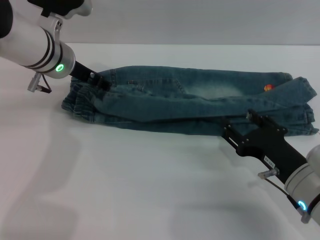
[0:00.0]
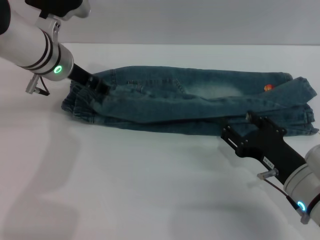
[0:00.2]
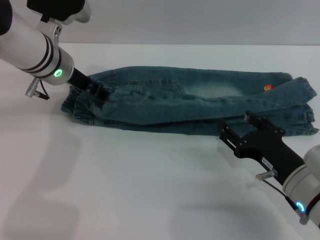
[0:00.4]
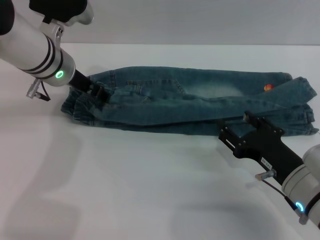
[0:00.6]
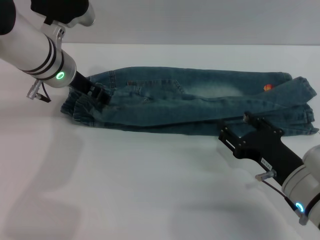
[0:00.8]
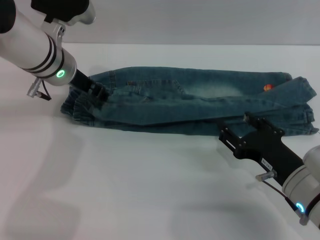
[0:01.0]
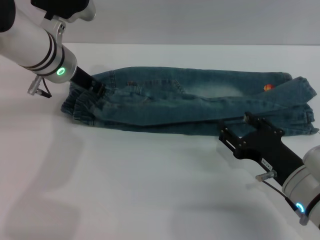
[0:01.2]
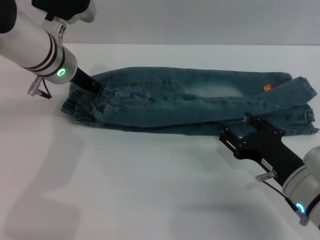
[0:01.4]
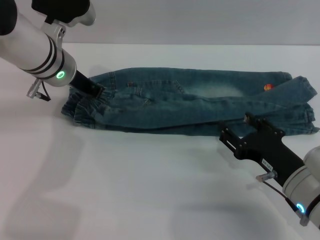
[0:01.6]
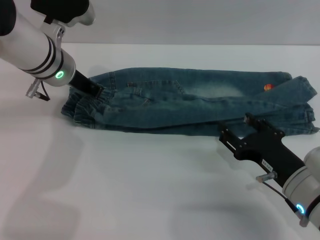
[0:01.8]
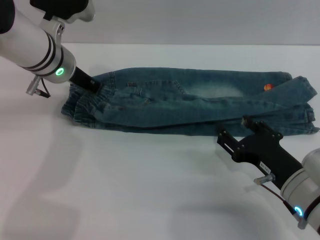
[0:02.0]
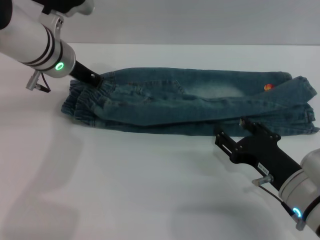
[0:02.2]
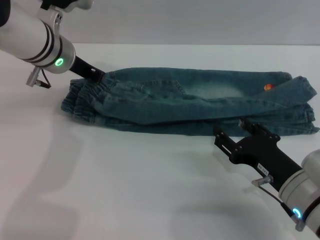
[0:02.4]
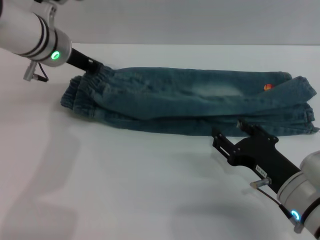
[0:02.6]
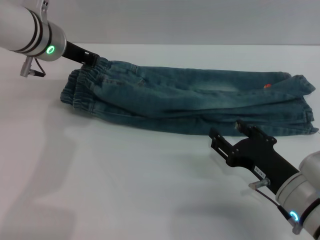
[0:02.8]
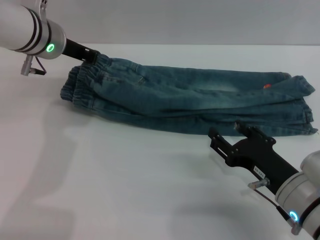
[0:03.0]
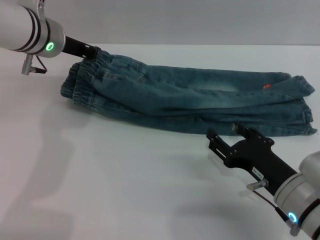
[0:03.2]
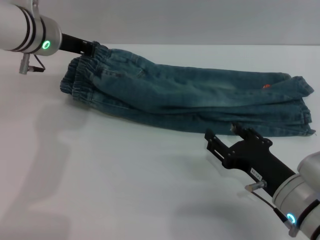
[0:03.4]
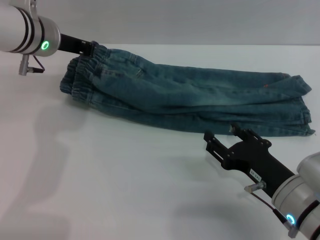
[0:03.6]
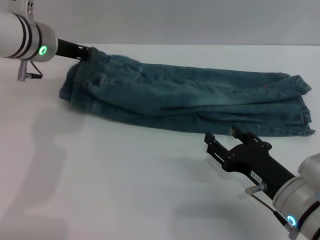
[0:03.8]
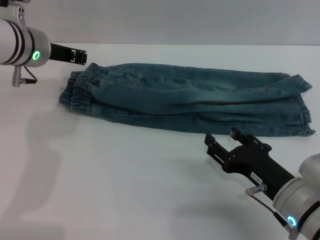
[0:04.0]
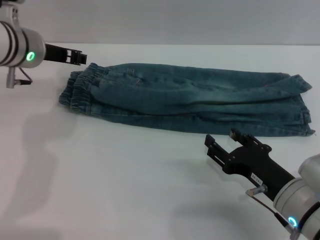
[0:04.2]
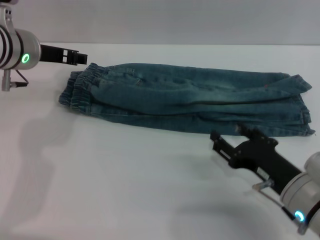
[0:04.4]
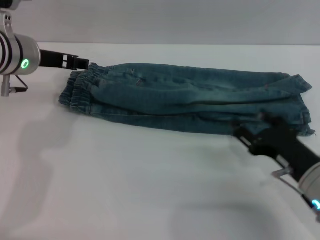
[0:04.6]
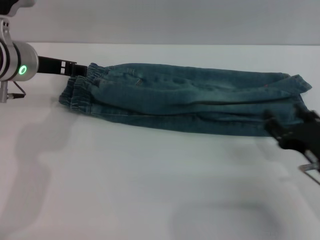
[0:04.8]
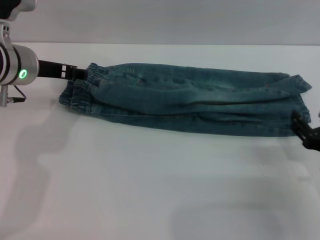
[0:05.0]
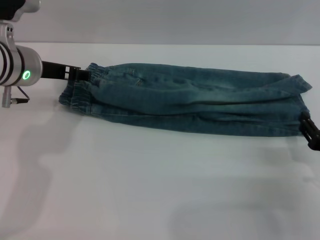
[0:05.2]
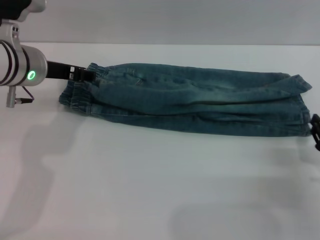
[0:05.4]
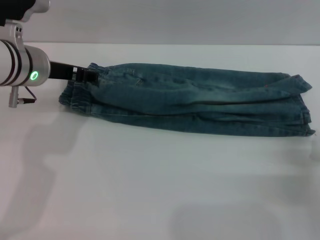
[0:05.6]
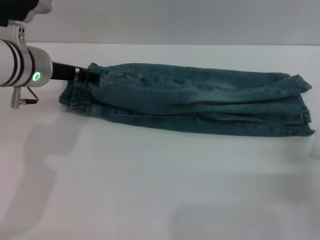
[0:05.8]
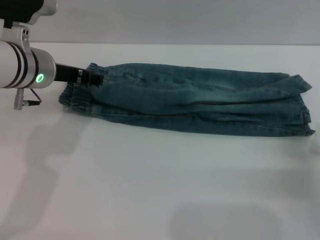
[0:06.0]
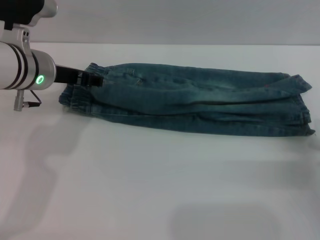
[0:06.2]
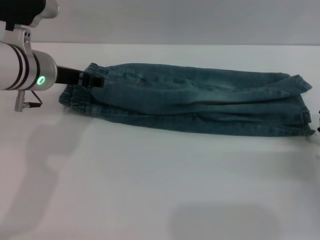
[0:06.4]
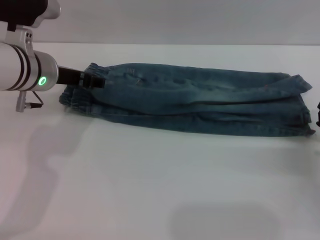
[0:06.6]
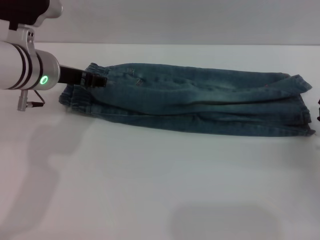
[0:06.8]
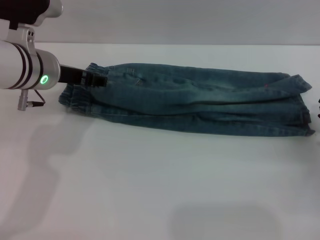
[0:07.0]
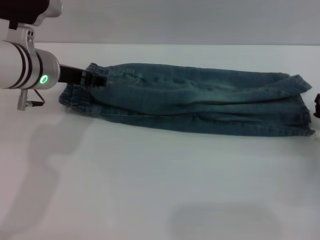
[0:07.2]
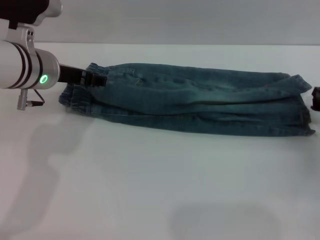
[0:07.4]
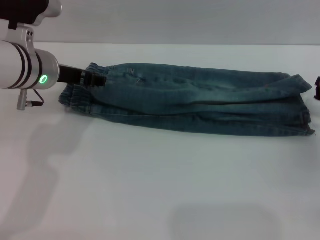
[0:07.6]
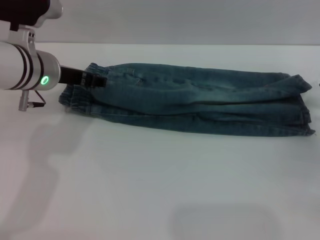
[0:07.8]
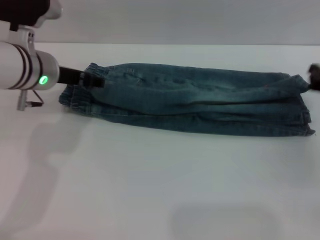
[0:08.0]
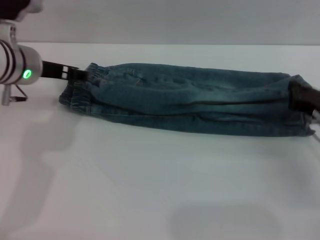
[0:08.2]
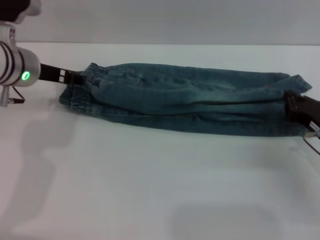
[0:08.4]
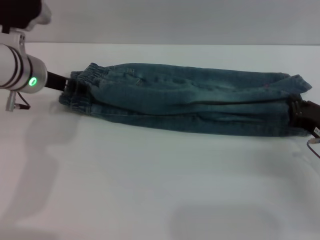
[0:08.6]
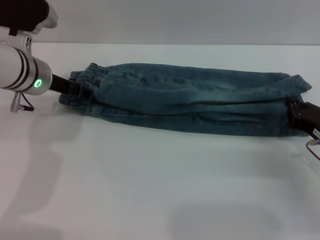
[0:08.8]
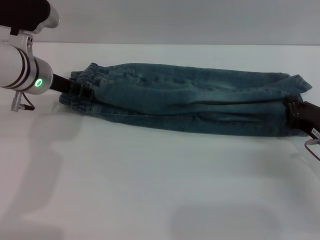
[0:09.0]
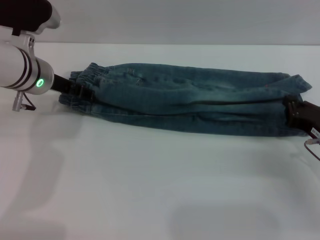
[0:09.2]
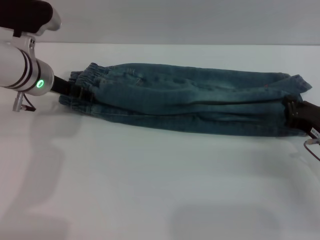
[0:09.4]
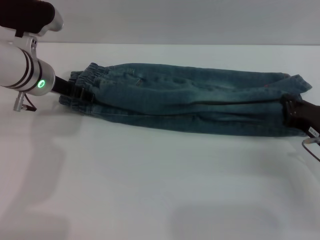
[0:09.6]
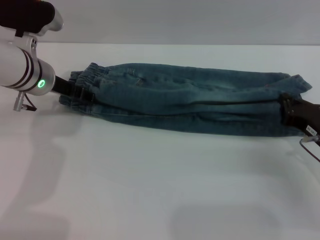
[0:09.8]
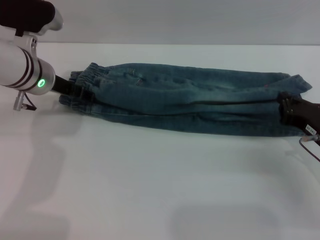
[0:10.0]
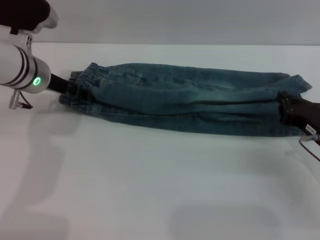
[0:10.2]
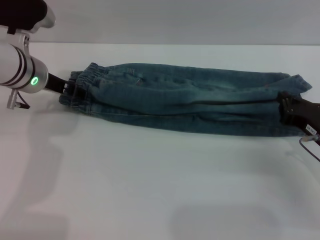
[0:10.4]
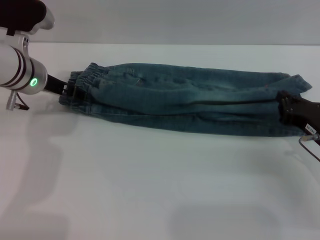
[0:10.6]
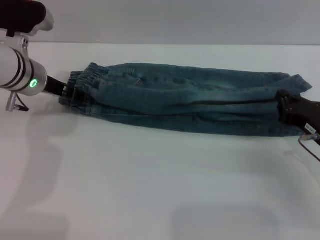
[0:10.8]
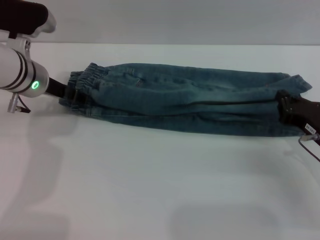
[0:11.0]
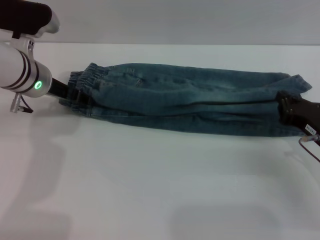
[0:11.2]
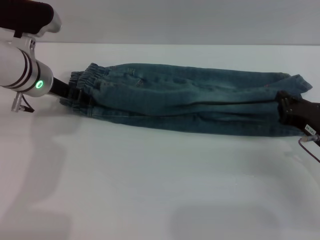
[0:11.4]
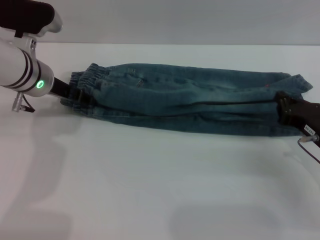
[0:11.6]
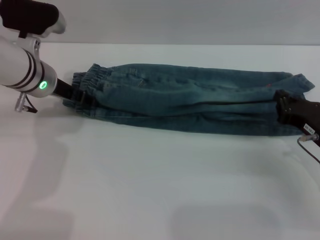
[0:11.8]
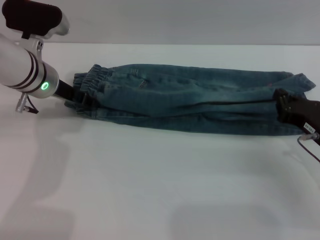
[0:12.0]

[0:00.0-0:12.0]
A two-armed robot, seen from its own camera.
0:00.0 to 0:01.6: The left gripper closes.
0:01.6 to 0:03.0: The grippers stay close to where they were, moving slightly.
0:03.0 to 0:04.4: The left gripper opens its fingers.
0:04.4 to 0:06.0: The left gripper opens its fingers, while the right gripper heads to the right, covering roughly 10 cm, and closes its fingers.
0:06.0 to 0:07.6: The right gripper travels forward by about 10 cm.
0:07.6 to 0:09.0: The right gripper heads backward, covering about 5 cm.
0:09.0 to 0:10.4: The two grippers keep their place.
0:10.4 to 0:12.0: The grippers stay close to where they were, moving slightly.

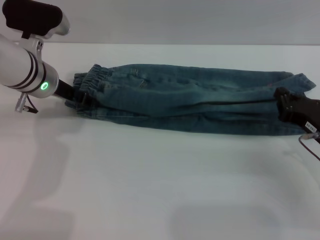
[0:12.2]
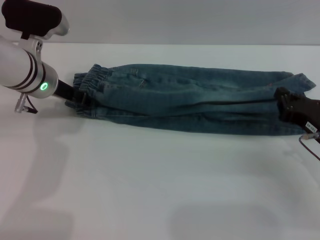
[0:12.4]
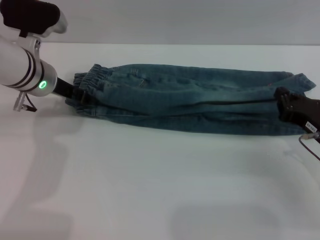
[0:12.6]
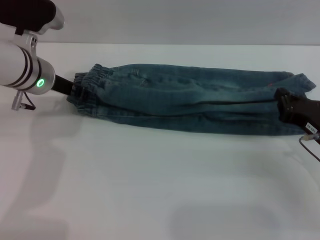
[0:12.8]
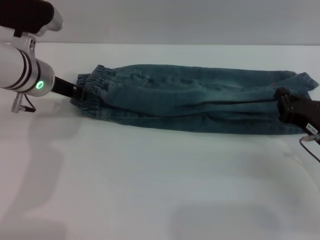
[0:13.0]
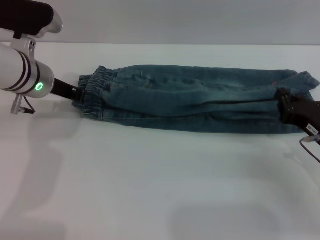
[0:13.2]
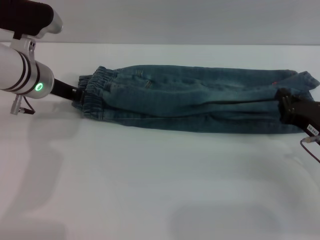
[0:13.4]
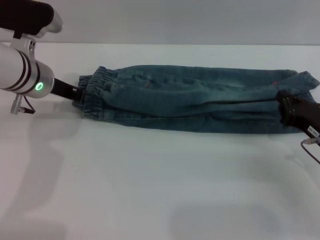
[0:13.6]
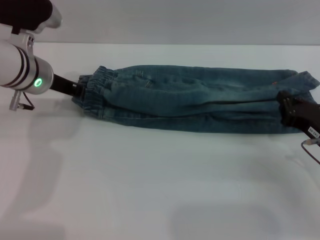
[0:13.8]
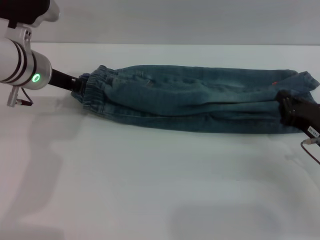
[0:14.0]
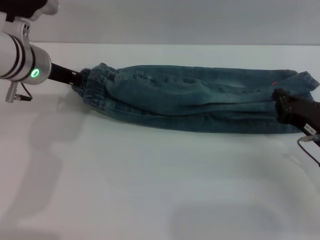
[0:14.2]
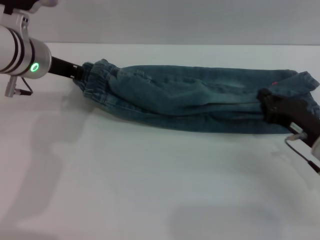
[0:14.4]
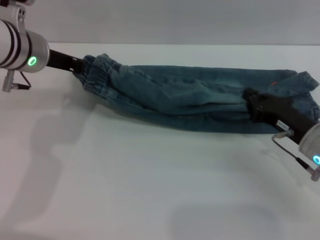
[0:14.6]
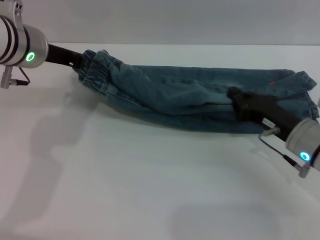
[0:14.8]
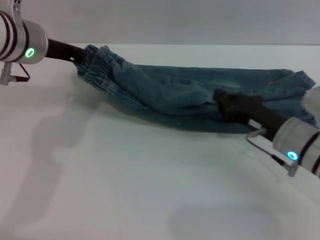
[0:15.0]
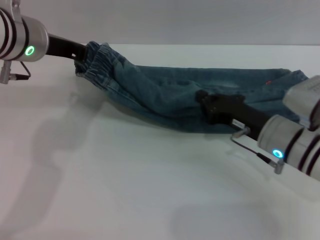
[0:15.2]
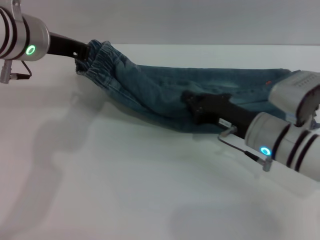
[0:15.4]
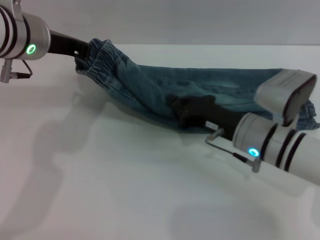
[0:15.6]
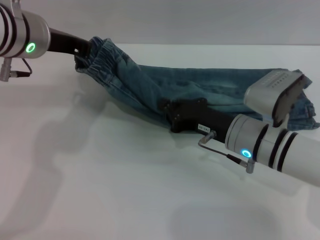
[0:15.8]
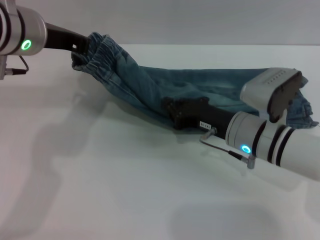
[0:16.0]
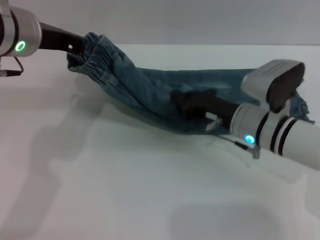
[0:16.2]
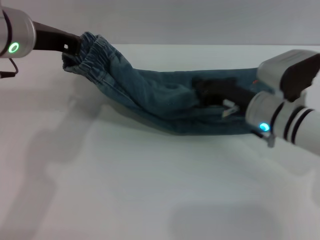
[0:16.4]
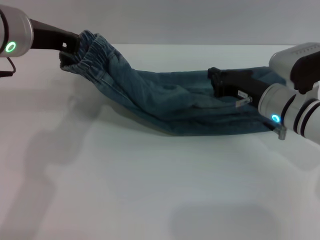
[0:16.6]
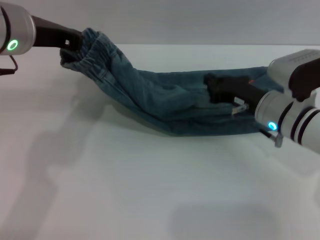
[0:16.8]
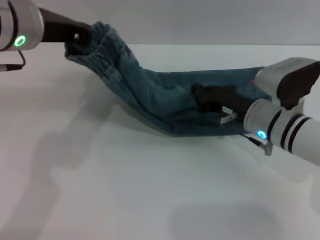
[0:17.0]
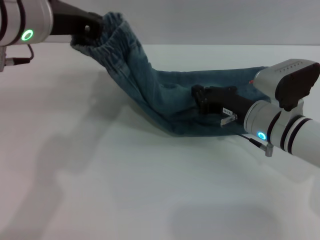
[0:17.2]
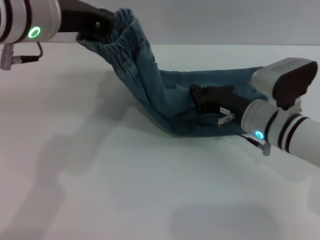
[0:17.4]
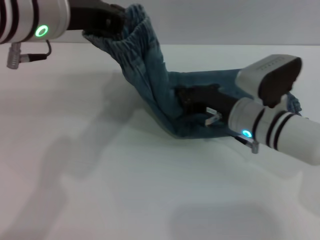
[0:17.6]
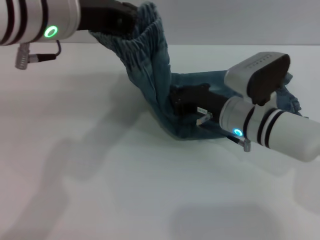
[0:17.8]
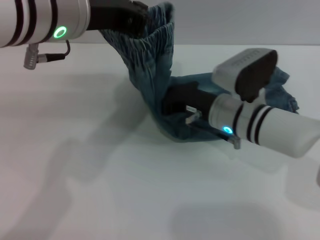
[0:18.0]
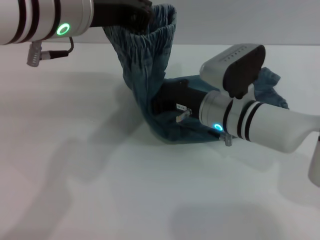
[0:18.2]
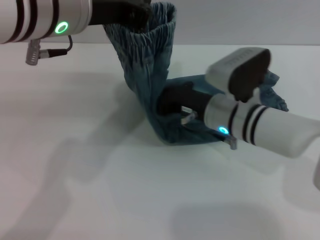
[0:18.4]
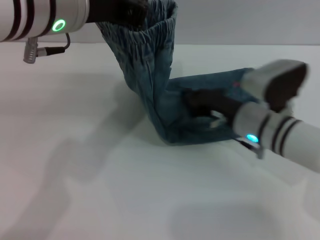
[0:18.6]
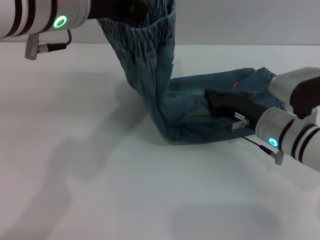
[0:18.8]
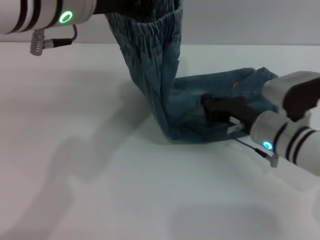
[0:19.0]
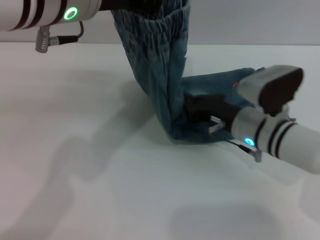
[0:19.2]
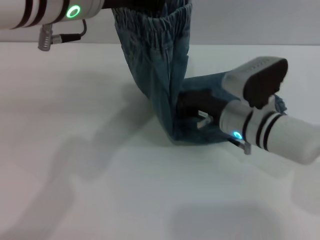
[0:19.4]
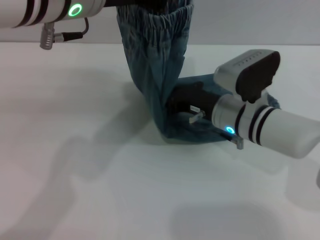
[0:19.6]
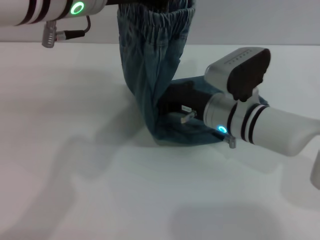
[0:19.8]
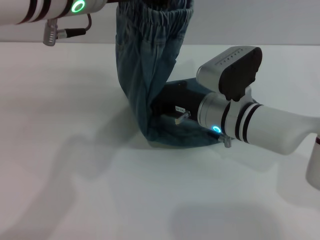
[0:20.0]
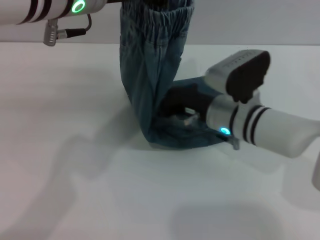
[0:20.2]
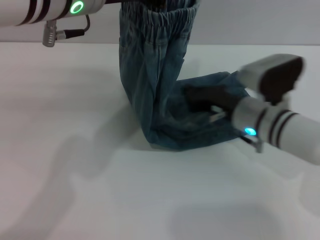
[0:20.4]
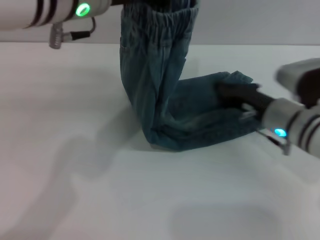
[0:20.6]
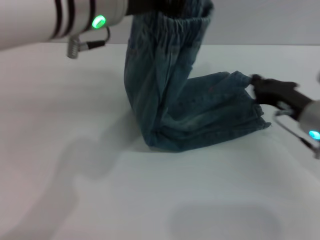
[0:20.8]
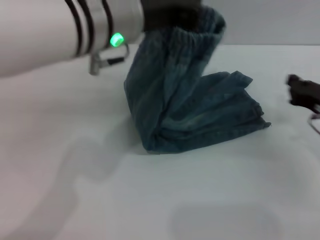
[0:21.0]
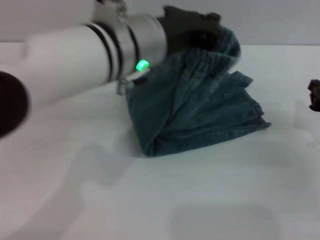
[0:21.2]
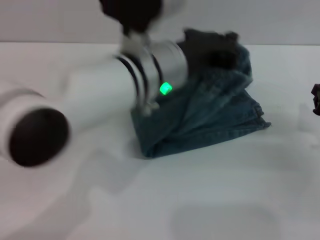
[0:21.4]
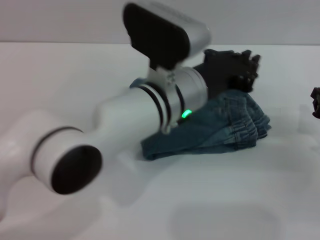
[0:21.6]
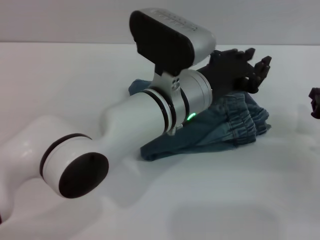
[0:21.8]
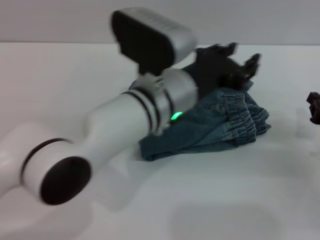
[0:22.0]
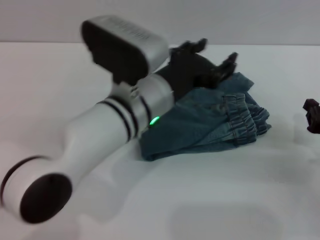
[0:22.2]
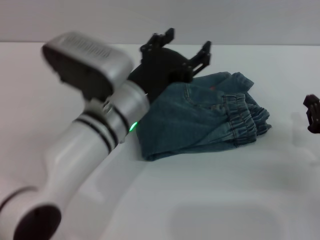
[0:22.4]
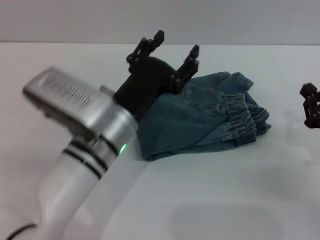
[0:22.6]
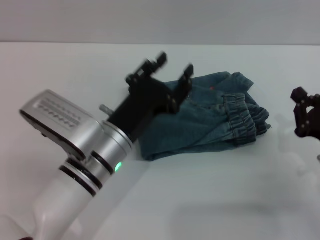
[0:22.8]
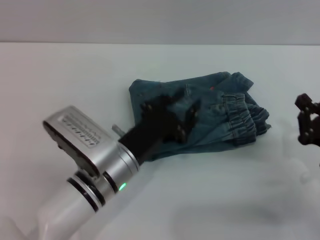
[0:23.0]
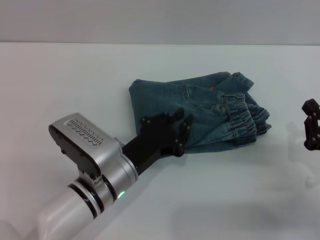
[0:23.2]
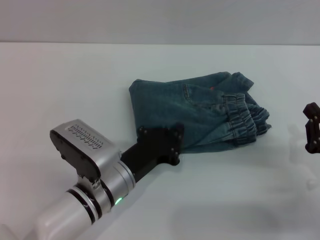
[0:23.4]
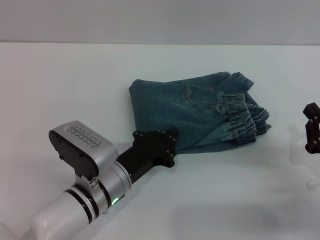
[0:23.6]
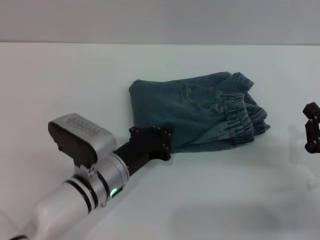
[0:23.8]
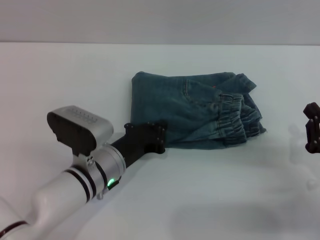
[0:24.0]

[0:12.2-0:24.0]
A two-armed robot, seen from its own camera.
Step, 0:12.2 to 0:22.0: Fold the pants from left to right with the left gripper.
0:12.2 to 0:13.6: The left gripper closes up.
0:13.6 to 0:15.2: The left gripper goes some 10 cm upward, while the right gripper moves to the left, roughly 10 cm.
0:15.2 to 0:16.6: The right gripper is displaced forward by some 5 cm.
0:16.6 to 0:18.2: The left gripper goes approximately 5 cm to the right. Meanwhile the right gripper moves to the left, roughly 10 cm.
0:18.2 to 0:19.6: The right gripper moves about 10 cm to the right and comes back.
0:19.6 to 0:21.0: The right gripper goes about 15 cm to the right. Meanwhile the left gripper shifts by roughly 5 cm.
0:21.0 to 0:22.6: The left gripper travels downward by roughly 15 cm, and opens. The right gripper is displaced backward by some 5 cm.
0:22.6 to 0:24.0: The left gripper goes roughly 10 cm downward, and closes up.
